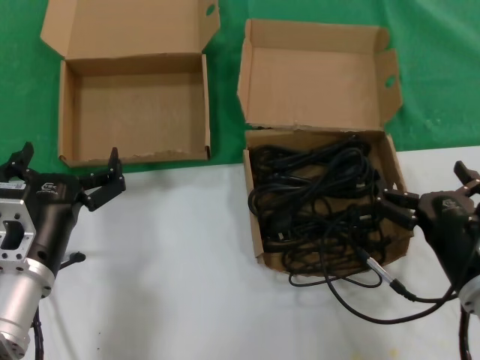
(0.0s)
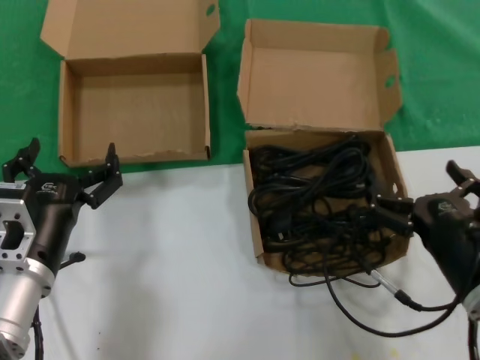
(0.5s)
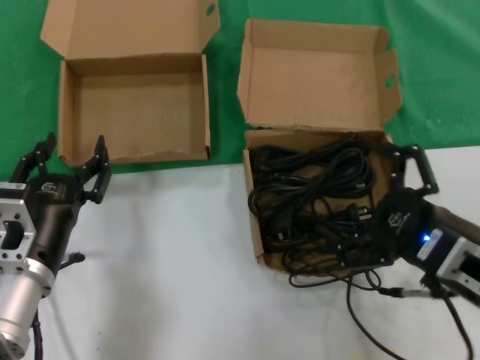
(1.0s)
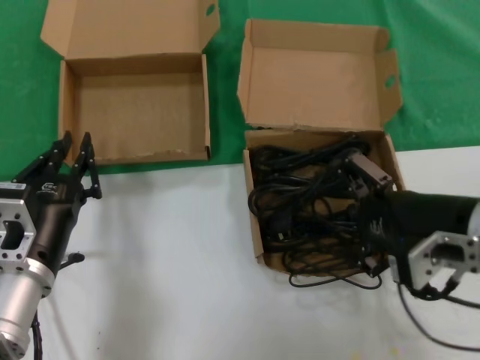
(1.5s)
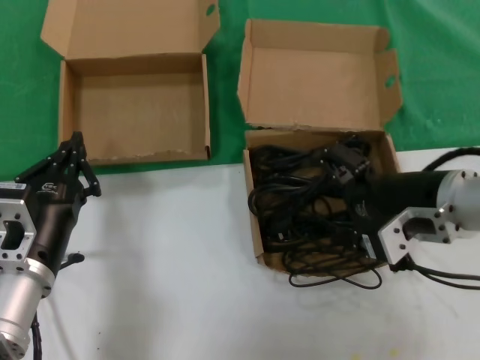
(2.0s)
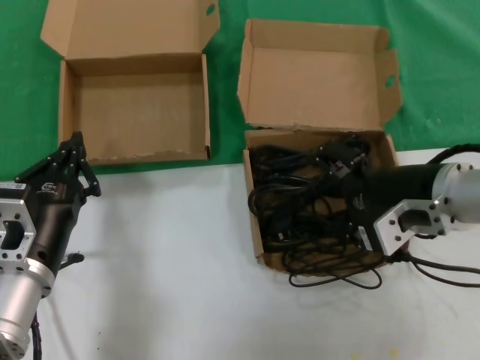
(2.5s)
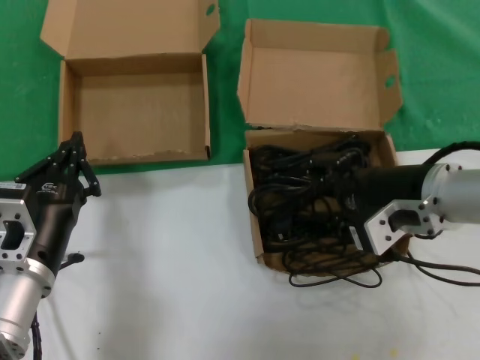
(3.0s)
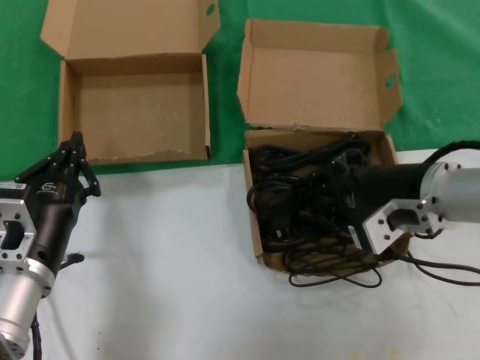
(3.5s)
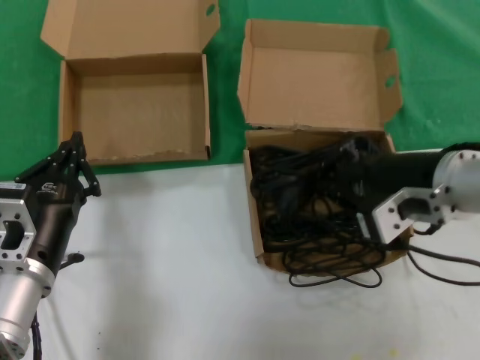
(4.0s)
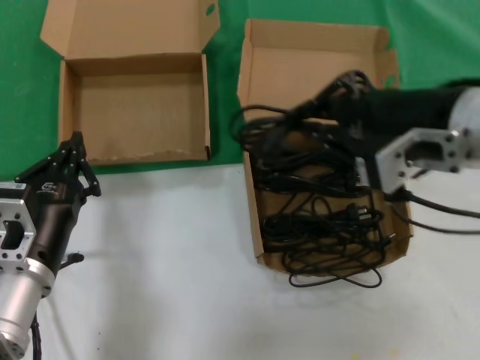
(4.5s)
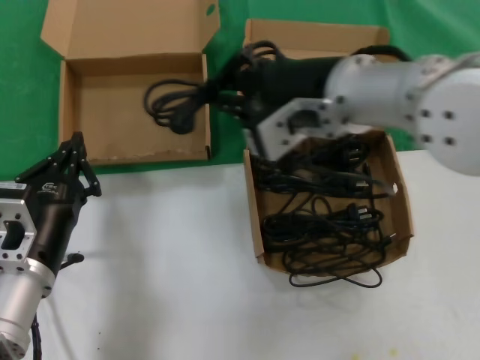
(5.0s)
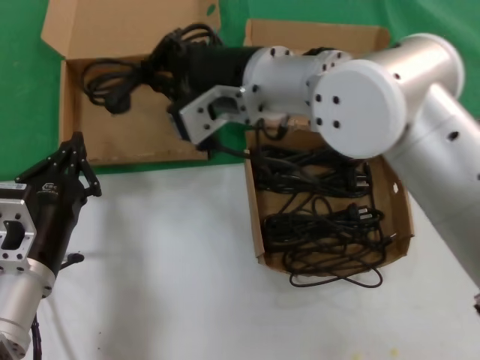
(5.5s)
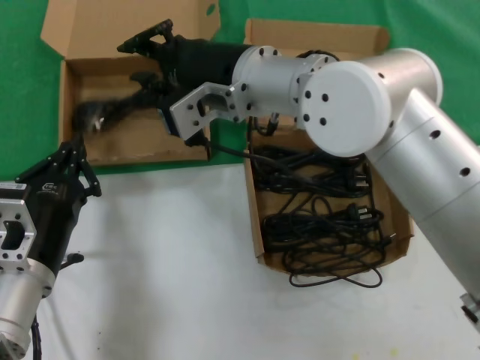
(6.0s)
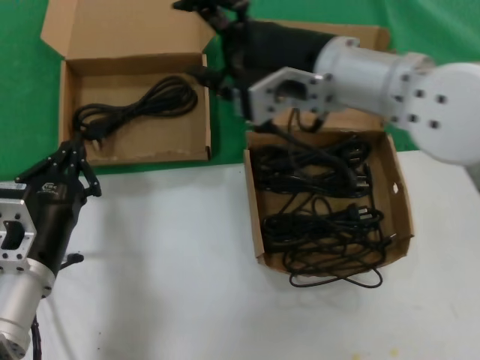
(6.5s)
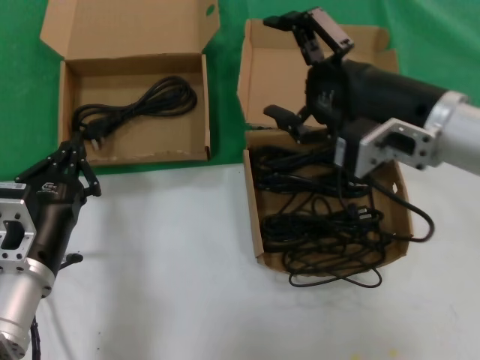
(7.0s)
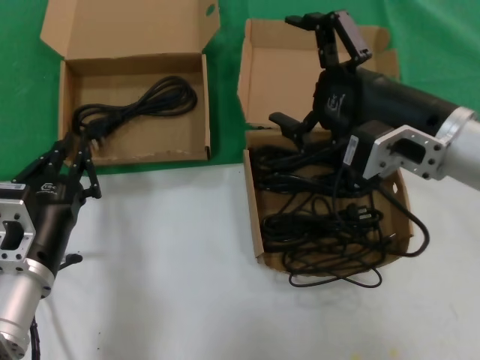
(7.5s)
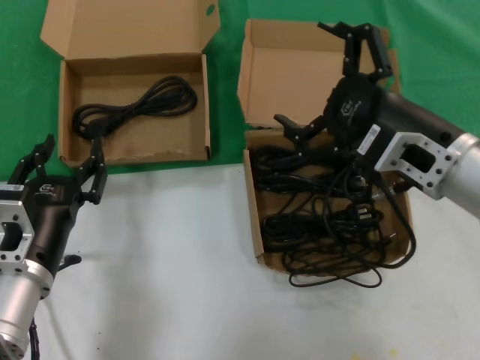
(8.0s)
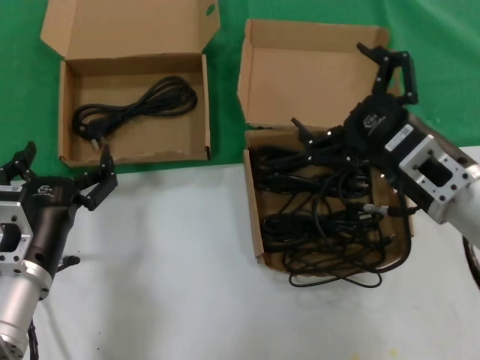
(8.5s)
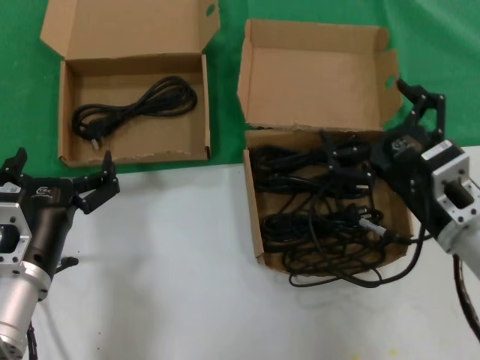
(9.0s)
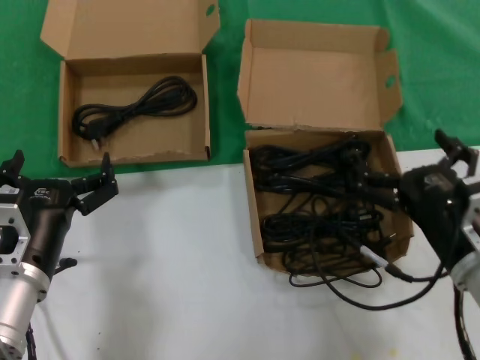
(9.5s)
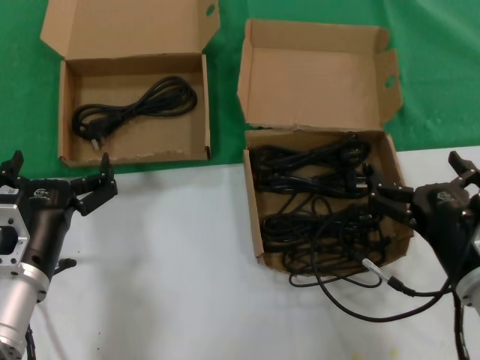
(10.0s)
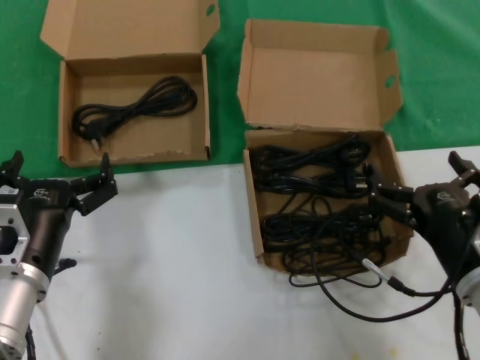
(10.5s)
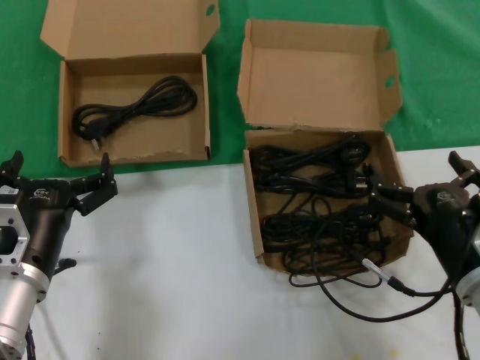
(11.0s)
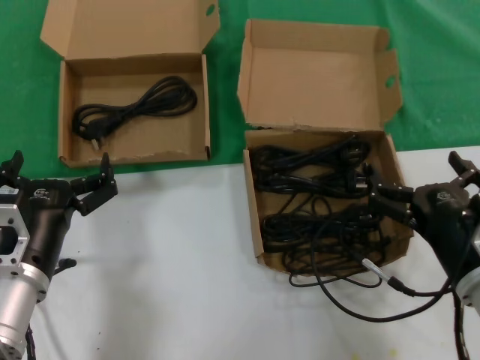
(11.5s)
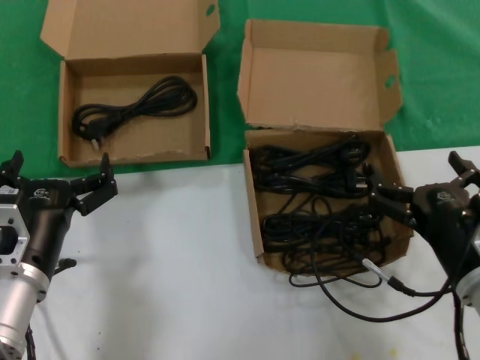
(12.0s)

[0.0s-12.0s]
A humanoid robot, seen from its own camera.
Task of the whole recording: take the parts from the box containing them and put them into an empty box.
Step, 0.0s to 3.0s: Grasp the data cable.
Step, 3.5s to 6.0s: Place the data cable in the another box.
0.0s to 2.0s: The right hand moves upward and forward, approximately 15 cm.
2.0s to 4.0s: The hands move only a little.
4.0s to 6.0s: The right hand travels to the left and forward by approximately 20 cm.
6.0s to 8.0s: The right hand travels to the right, backward and downward by some 20 cm.
8.0s to 10.0s: The right hand shifts some 15 cm downward and backward.
10.0s to 12.0s: Both hands stay put.

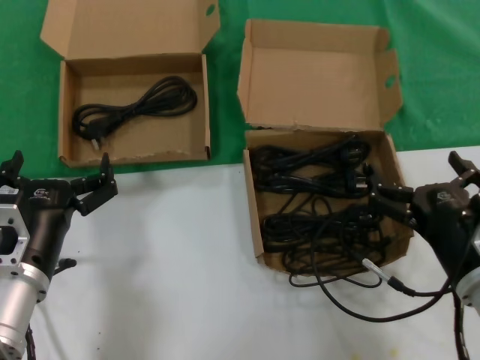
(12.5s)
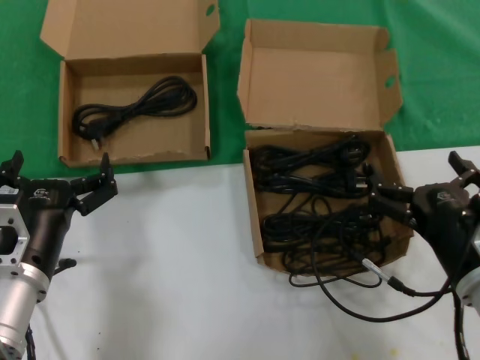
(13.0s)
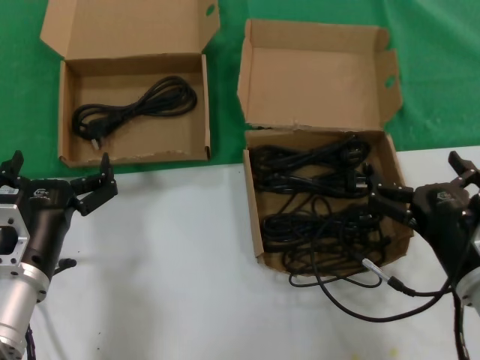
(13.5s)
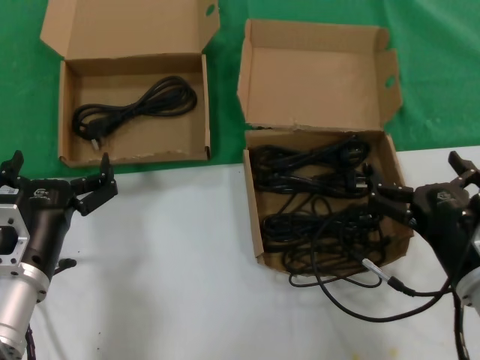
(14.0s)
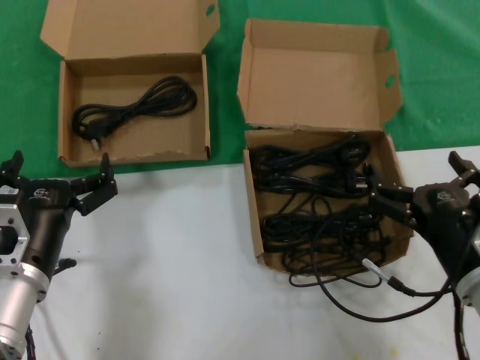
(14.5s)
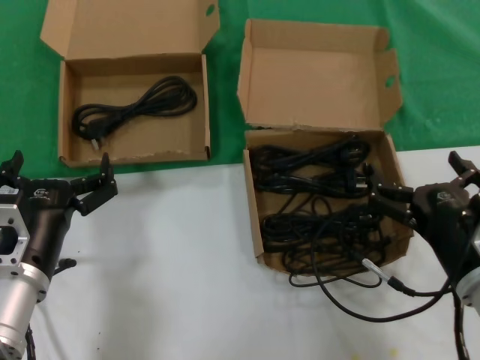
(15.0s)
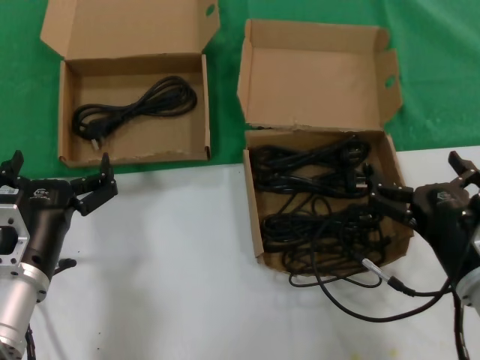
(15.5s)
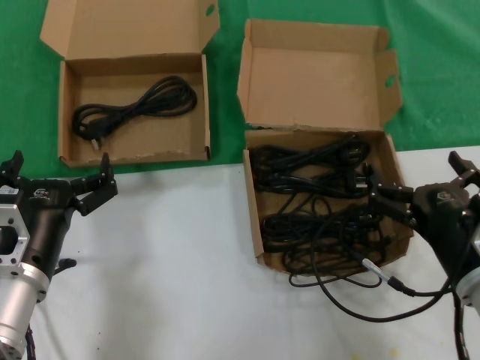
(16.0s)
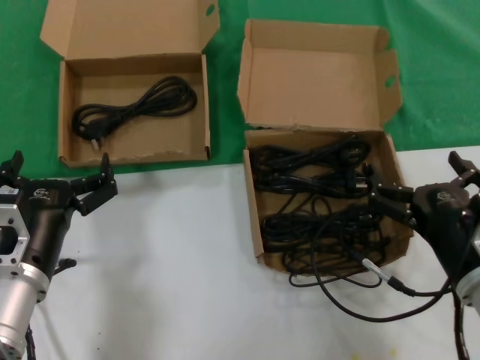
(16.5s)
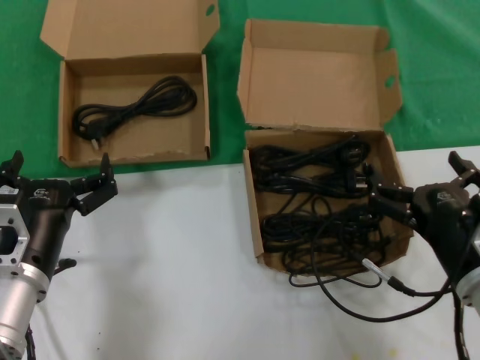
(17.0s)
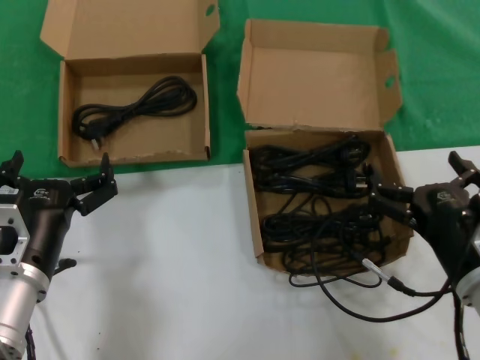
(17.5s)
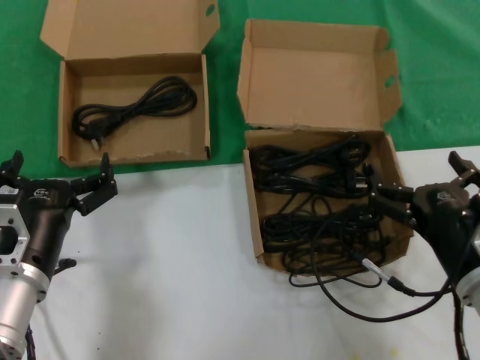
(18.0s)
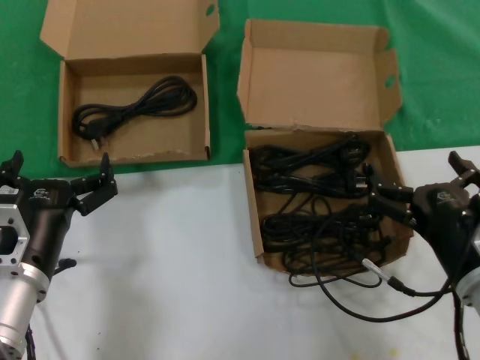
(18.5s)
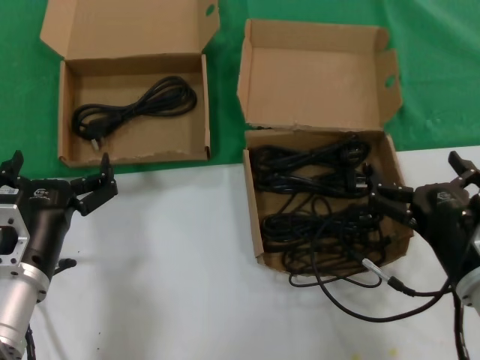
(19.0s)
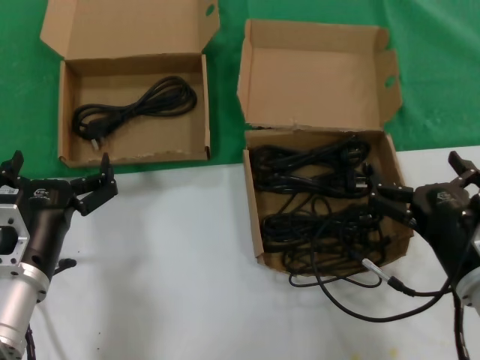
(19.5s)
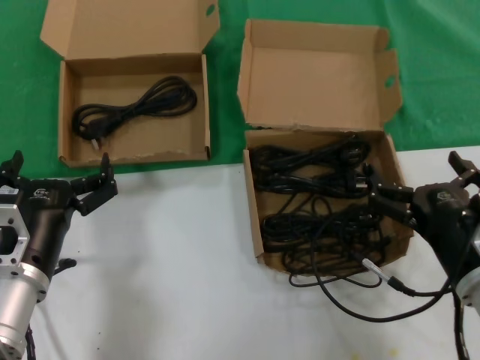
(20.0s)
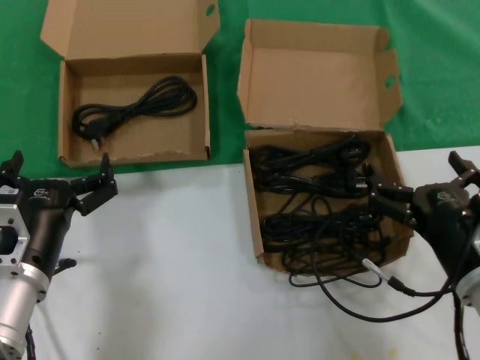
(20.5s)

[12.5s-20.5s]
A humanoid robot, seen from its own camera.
Task of the whole recording: take the parts from the box containing them and put them into an empty box.
12.5s to 20.5s: Neither hand changes place.

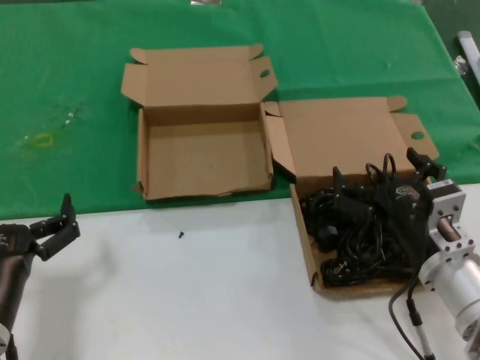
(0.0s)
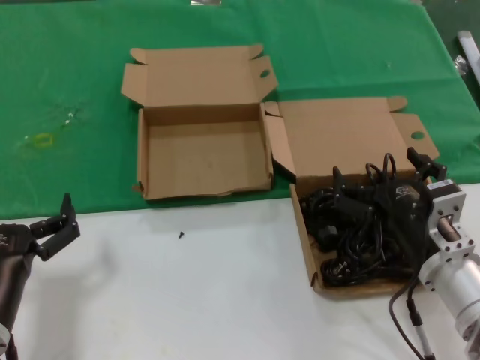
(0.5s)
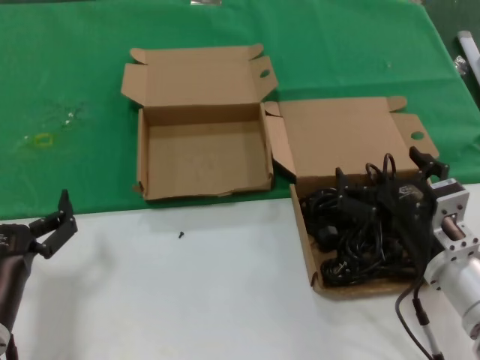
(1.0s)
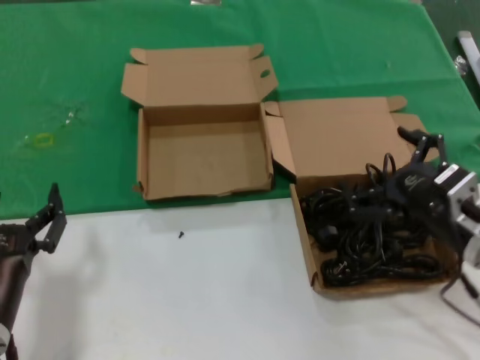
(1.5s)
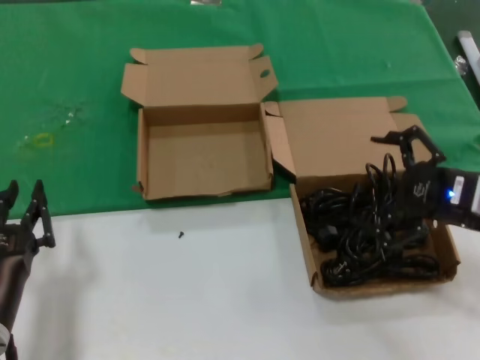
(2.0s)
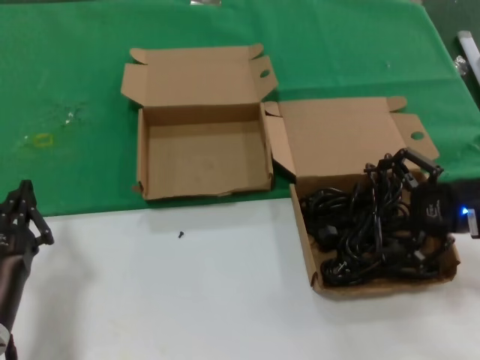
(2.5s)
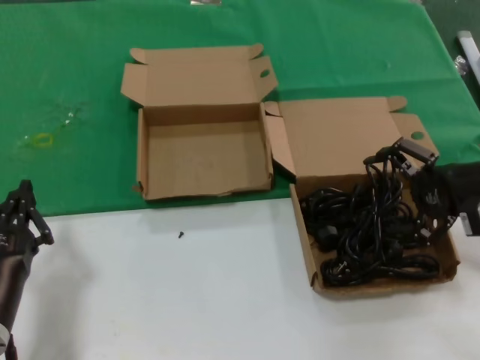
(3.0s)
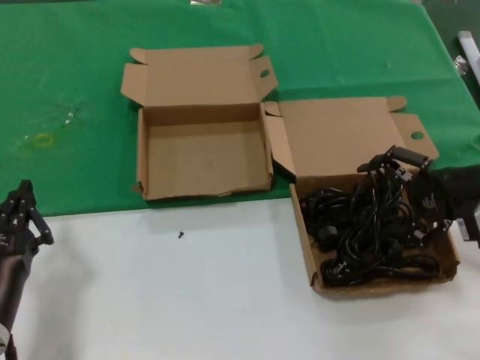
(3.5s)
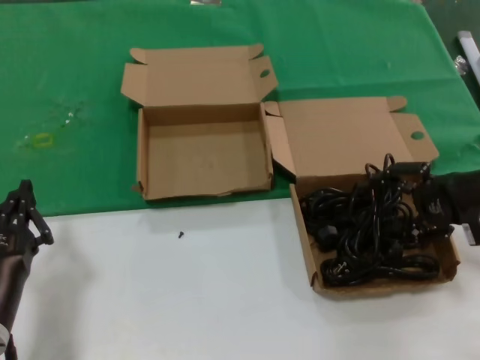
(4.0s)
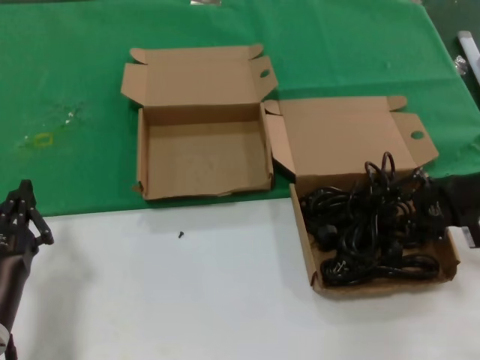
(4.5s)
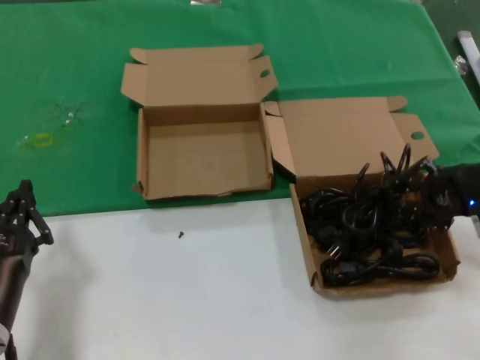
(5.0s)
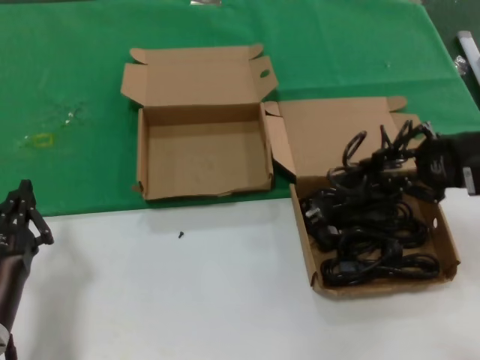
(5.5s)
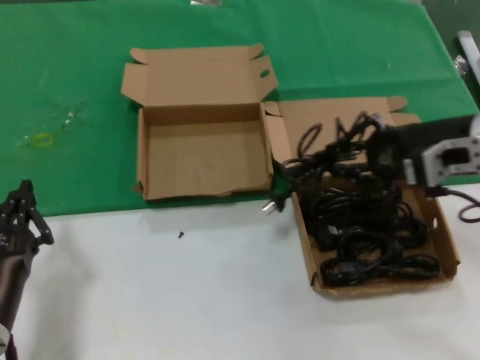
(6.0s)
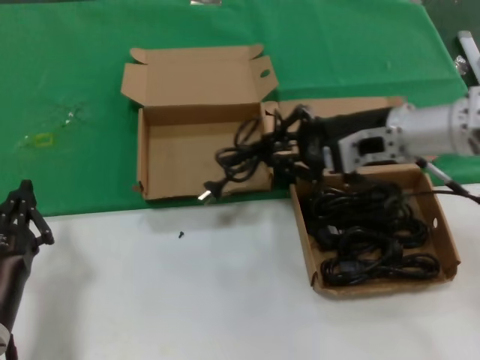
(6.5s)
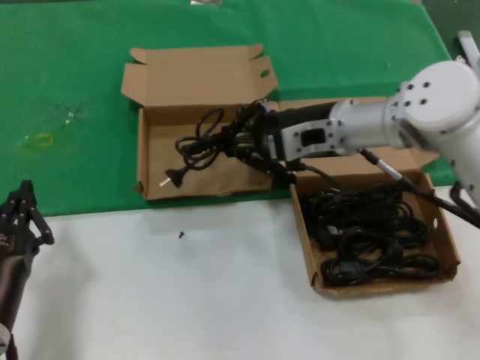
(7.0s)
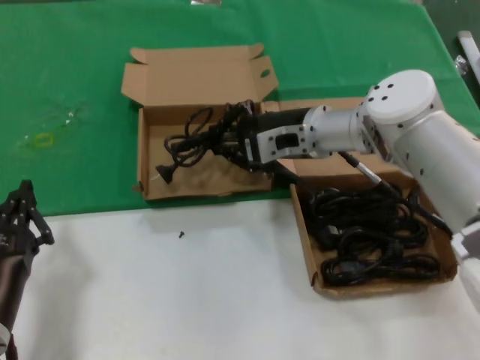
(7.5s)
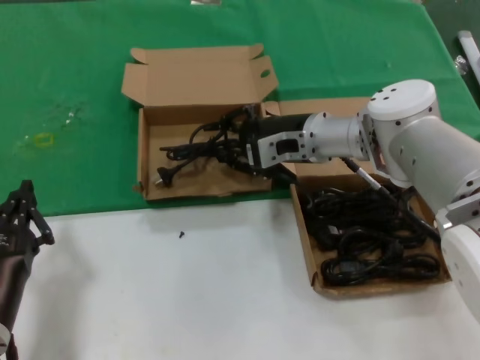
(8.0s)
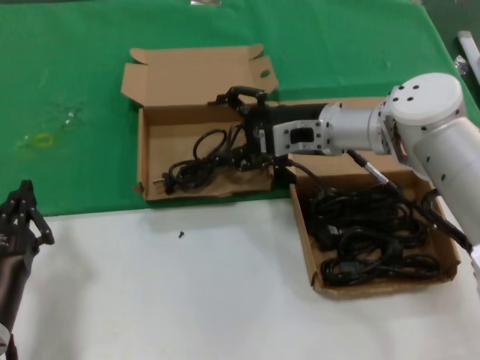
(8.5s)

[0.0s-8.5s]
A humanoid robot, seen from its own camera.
Task of the whole recording: take the parts from the box containing them and put them into an empty box.
Step, 0.0s to 4.5s: Grasp the data cable.
Step, 5.0s to 8.0s: Place the data cable in the another box.
0.0s to 2.0s: The right hand goes some 15 cm to the right and upward.
2.0s to 4.0s: The right hand moves forward, some 5 cm.
4.0s to 6.5s: The right hand heads to the left, covering approximately 15 cm.
6.5s to 8.5s: The right hand goes approximately 10 cm forward and to the left.
